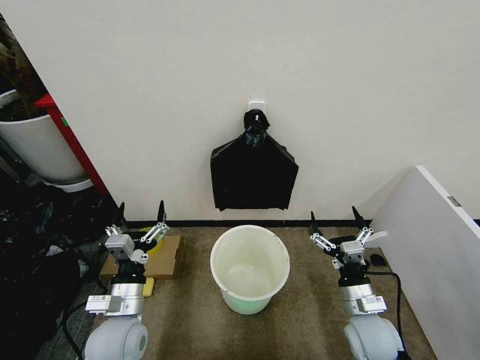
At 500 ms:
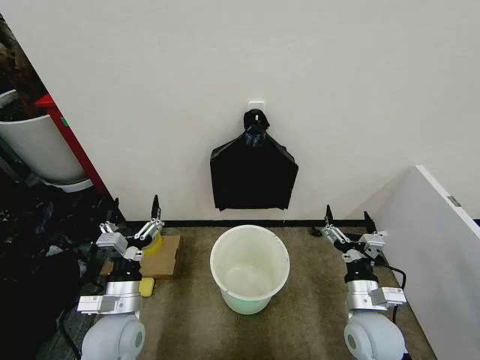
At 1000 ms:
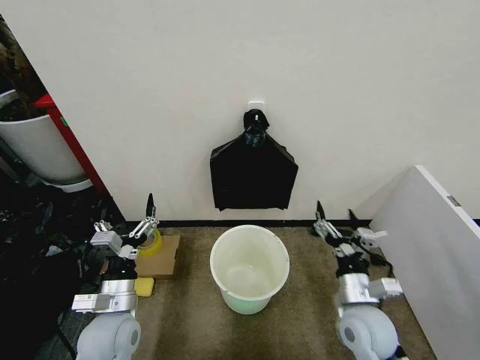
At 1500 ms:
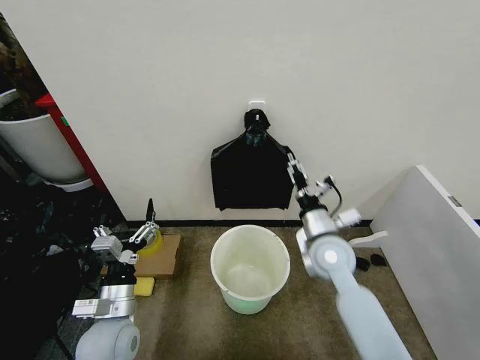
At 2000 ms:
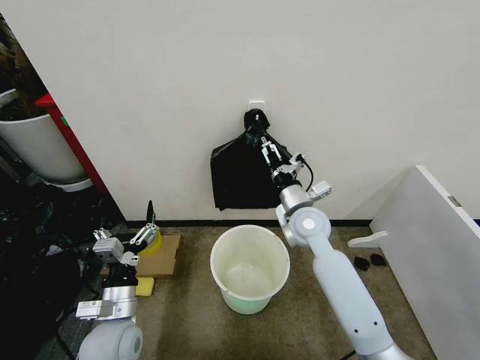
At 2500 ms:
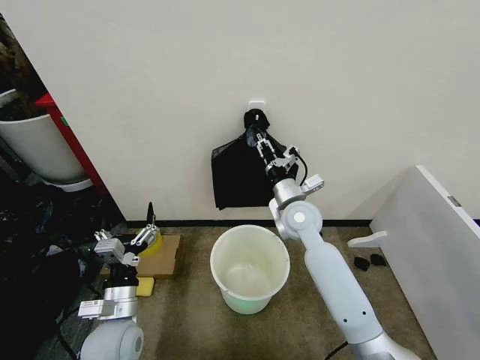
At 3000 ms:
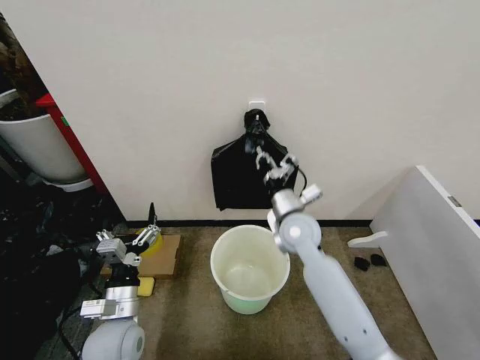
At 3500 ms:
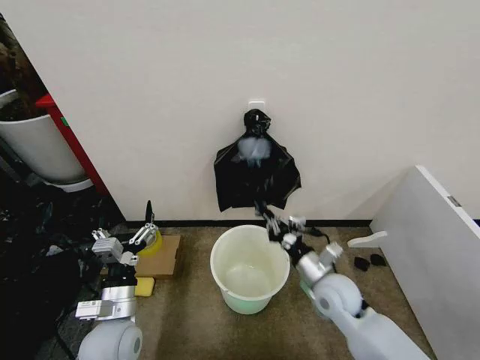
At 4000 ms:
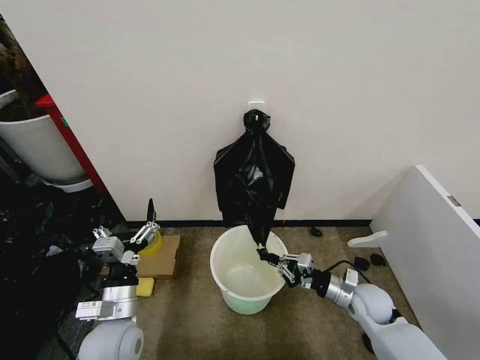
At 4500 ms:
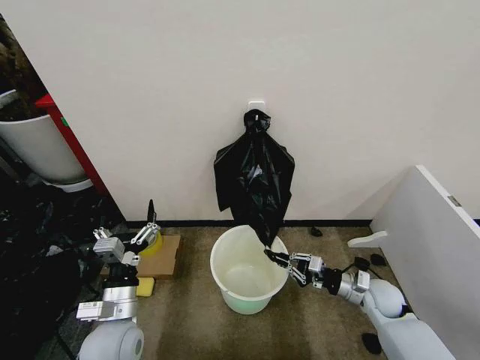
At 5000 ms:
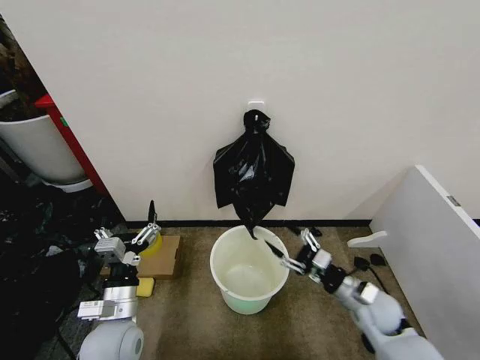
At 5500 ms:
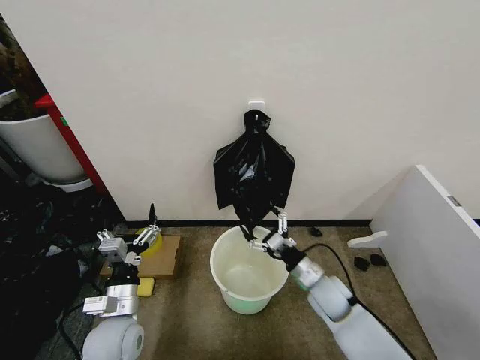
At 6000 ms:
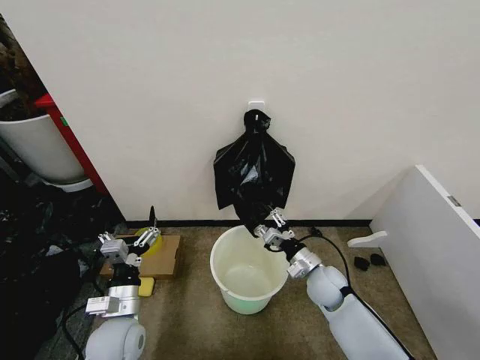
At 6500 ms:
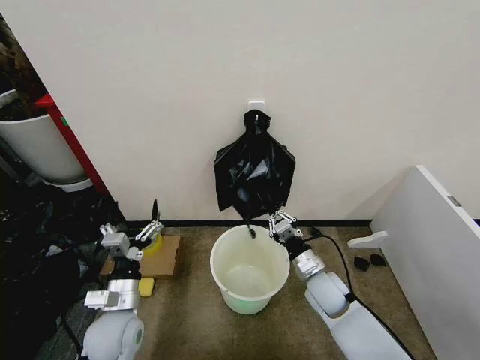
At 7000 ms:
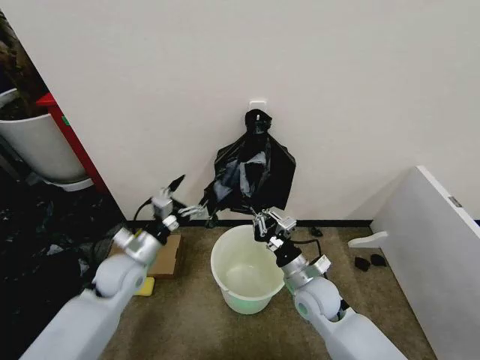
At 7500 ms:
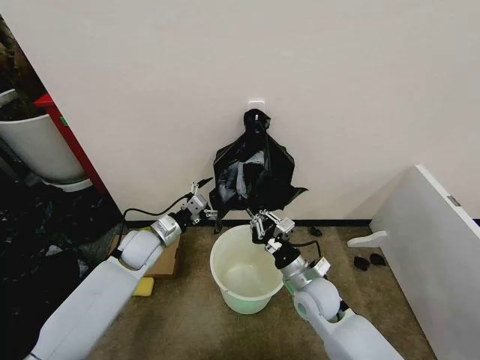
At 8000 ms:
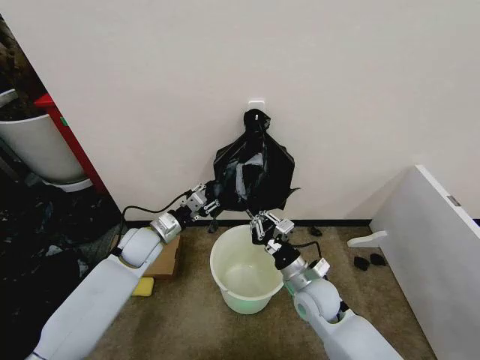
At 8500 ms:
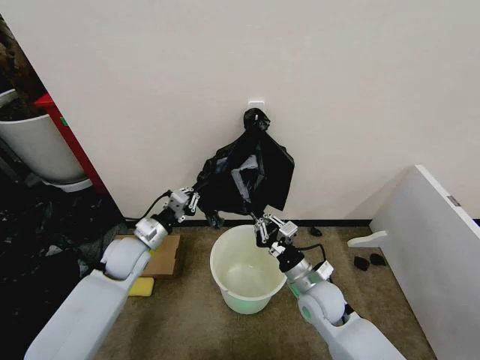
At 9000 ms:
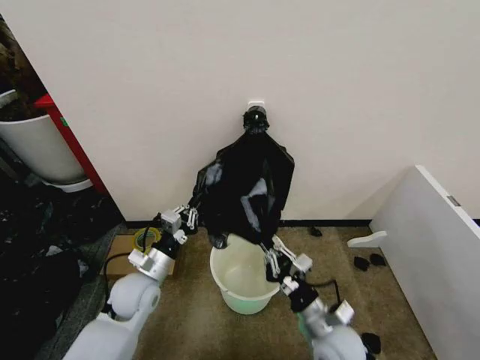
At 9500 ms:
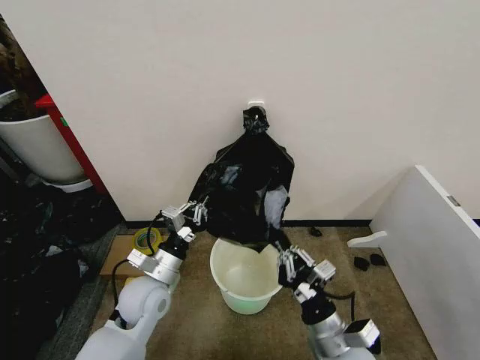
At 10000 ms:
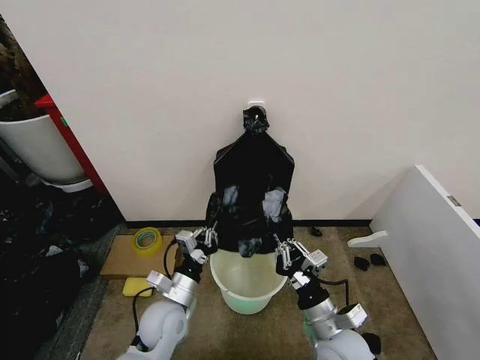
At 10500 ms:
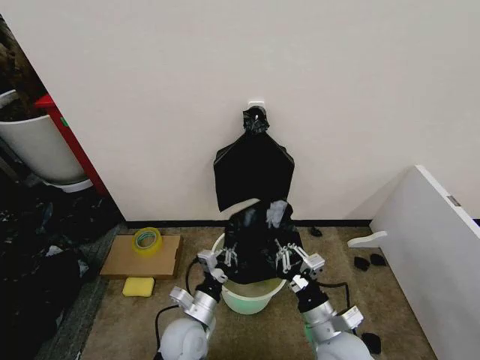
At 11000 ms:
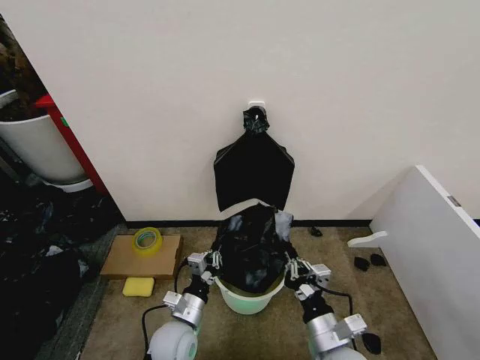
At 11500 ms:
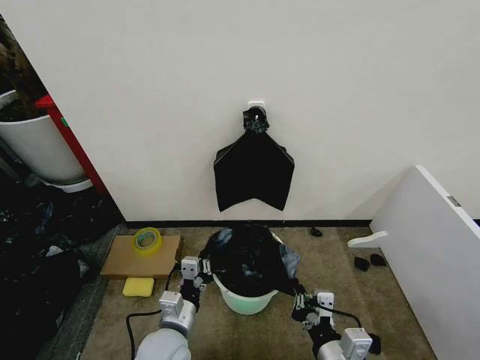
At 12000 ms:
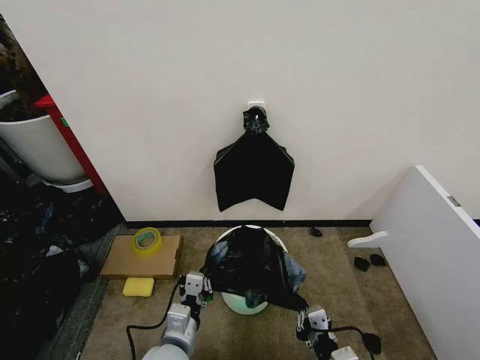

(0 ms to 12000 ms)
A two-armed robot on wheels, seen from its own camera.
Task of the whole recording: Place the garbage bag over the trash bin.
2000 ms - 4000 ms: The right gripper is displaced downward, to the right and backward by some 25 cm, and closes.
4000 ms - 6000 ms: The right gripper heads to the left, covering some 10 cm, and opens.
6000 ms - 8000 ms: The right gripper ends up approximately 10 cm from where it was, and closes its fingers. Meanwhile the left gripper travels forward by about 20 cm, and closes.
8000 ms - 10000 ms: The right gripper travels backward by approximately 10 cm; the left gripper moves backward and to the right, roughly 20 cm, and closes up.
10000 ms - 12000 ms: The two grippers go roughly 10 cm backward.

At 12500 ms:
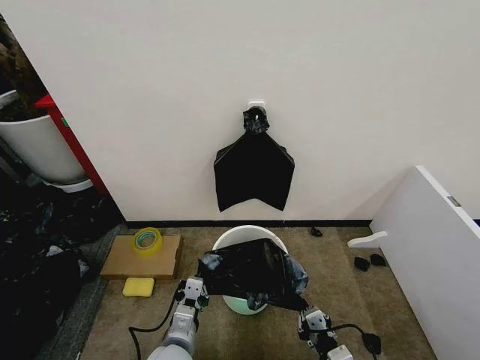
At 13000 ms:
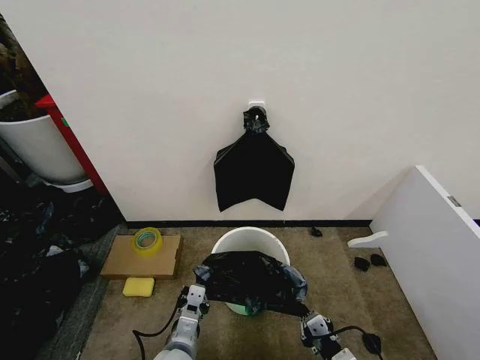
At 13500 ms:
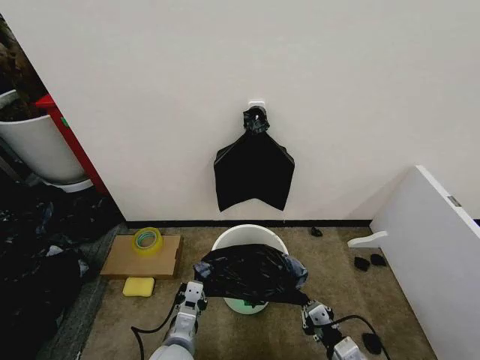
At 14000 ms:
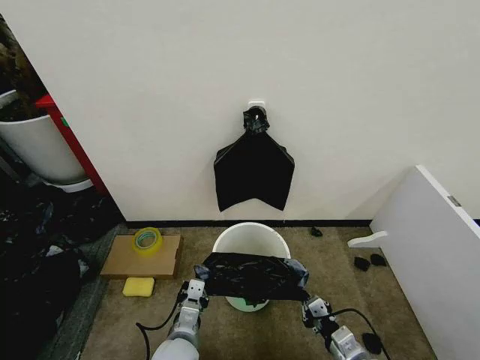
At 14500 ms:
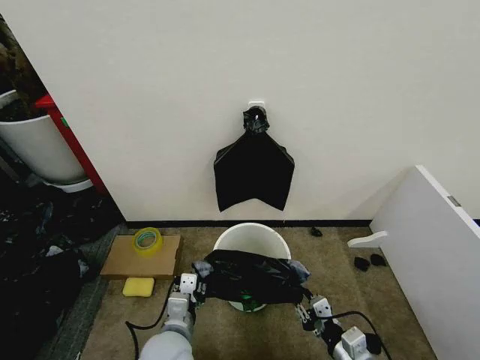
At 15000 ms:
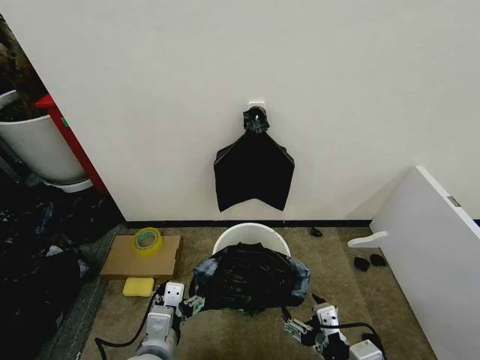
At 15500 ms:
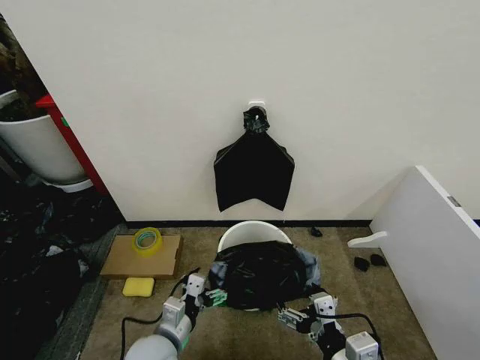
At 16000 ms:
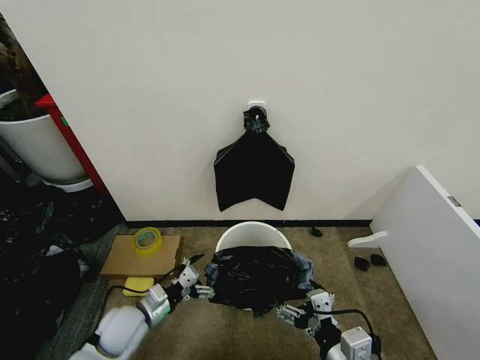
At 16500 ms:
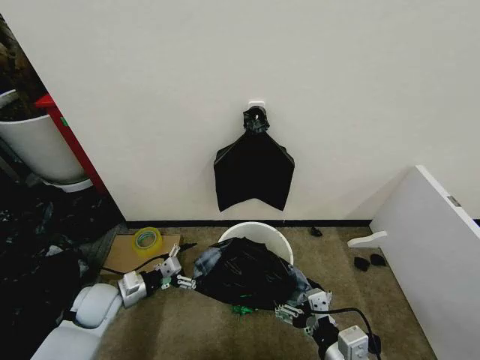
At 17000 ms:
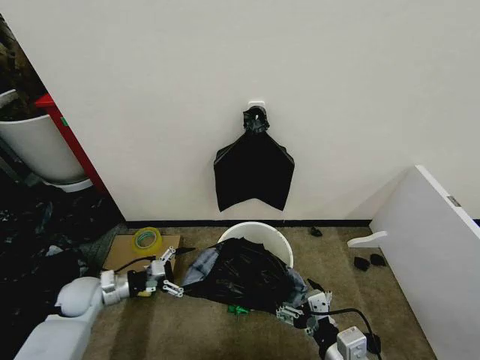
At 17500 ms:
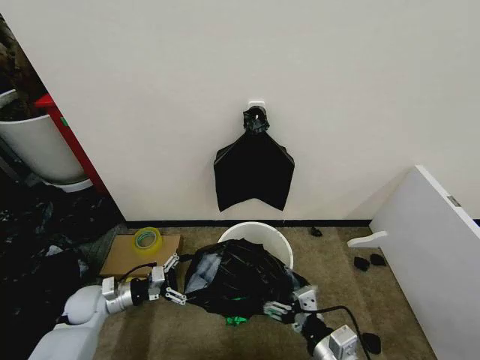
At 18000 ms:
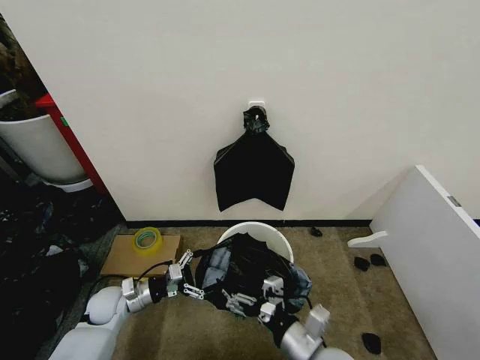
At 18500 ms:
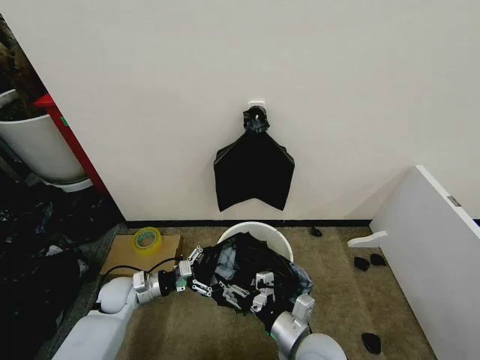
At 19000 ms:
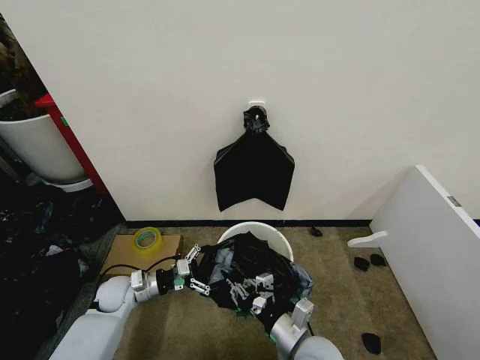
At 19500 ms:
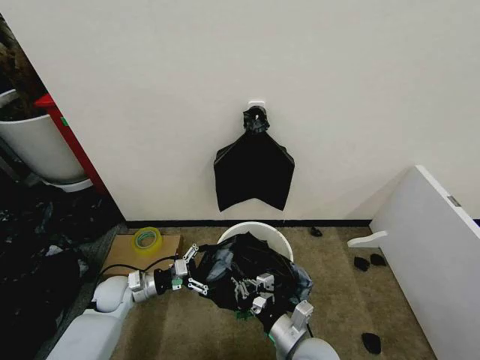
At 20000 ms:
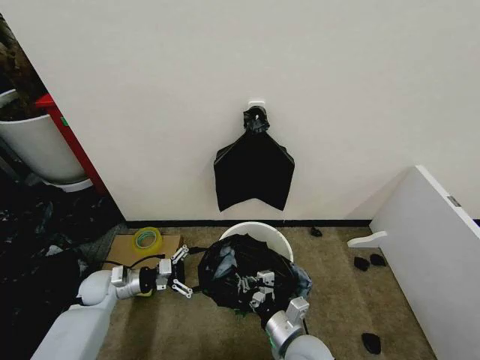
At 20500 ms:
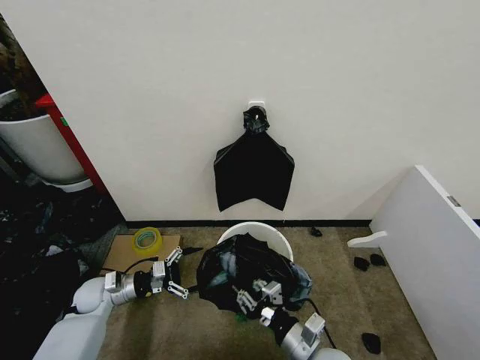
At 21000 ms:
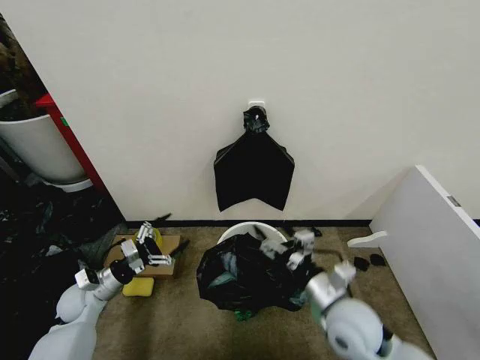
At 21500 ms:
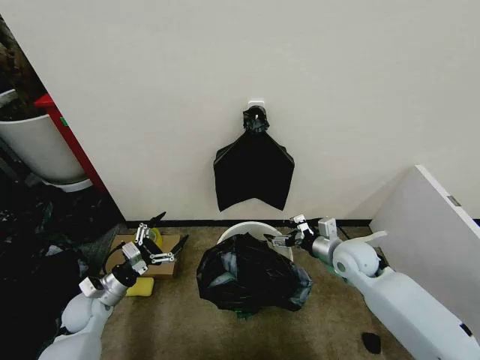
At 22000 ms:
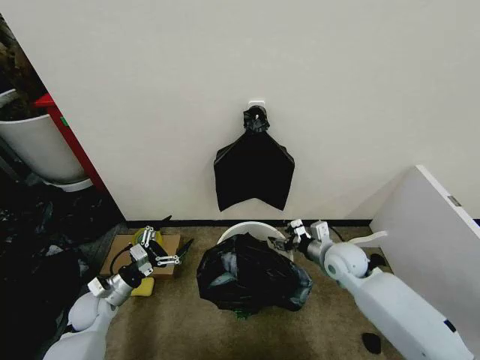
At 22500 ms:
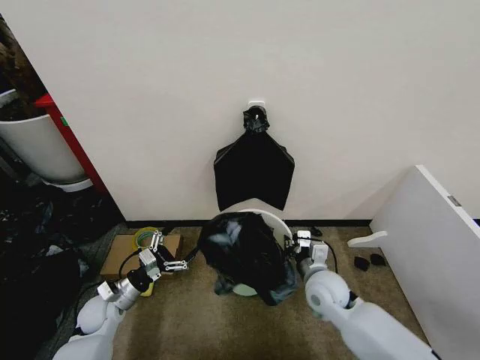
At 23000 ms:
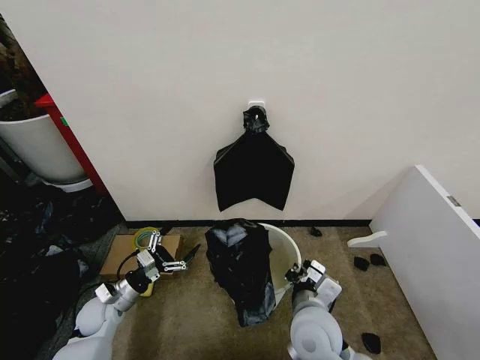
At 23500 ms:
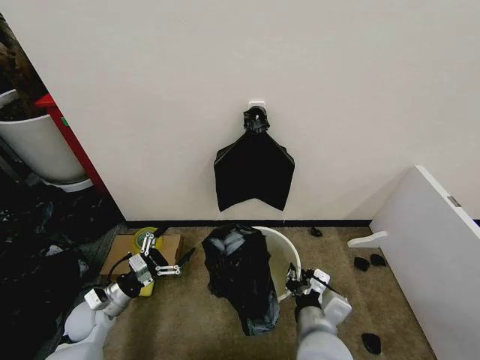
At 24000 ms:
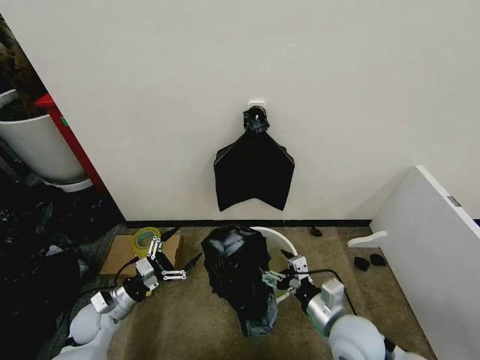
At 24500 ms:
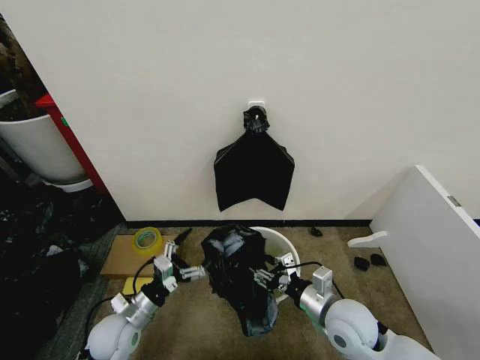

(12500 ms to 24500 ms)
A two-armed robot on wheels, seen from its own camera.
Task of the whole recording: Place the garbage bag over the trash bin.
12500 ms - 14500 ms: The left gripper opens.
14500 ms - 16500 ms: The right gripper heads upward and to the left, covering about 10 cm, and opens, while the left gripper is displaced to the left and forward by roughly 20 cm, and opens its fingers.
16500 ms - 18500 ms: The left gripper moves roughly 5 cm, while the right gripper is displaced forward, to the left and downward by roughly 10 cm.
18500 ms - 20500 ms: The right gripper closes its fingers, while the left gripper moves to the left, some 5 cm.
20500 ms - 22500 ms: The right gripper is displaced forward by some 15 cm, and opens, then closes once more.
22500 ms - 24500 ms: The right gripper travels backward by roughly 10 cm, and opens up. The left gripper moves to the right and backward, roughly 10 cm.

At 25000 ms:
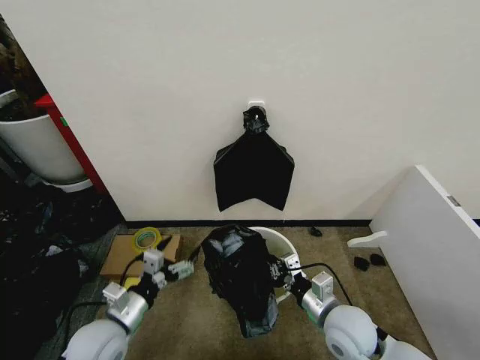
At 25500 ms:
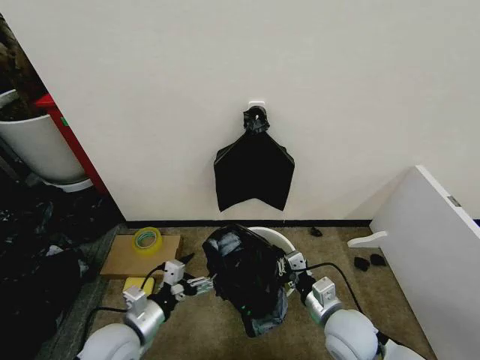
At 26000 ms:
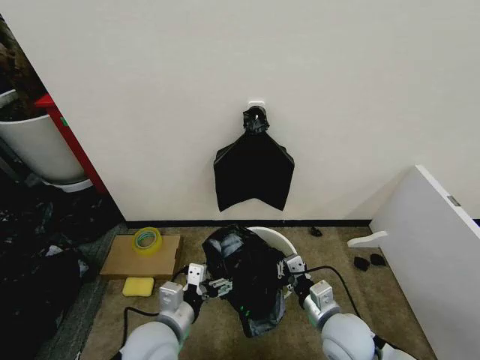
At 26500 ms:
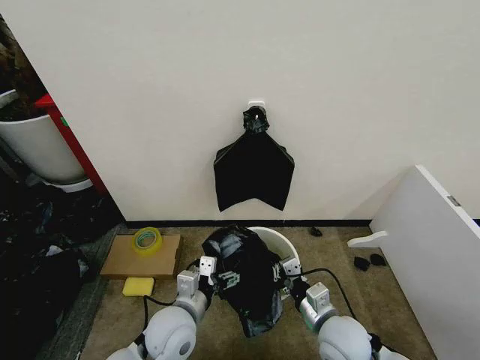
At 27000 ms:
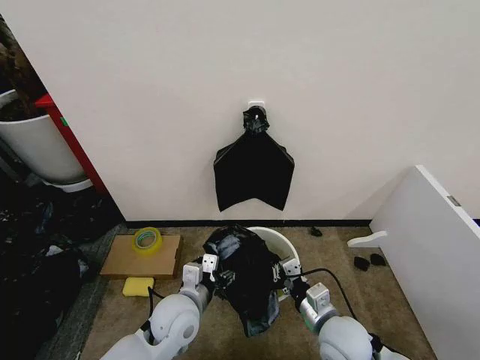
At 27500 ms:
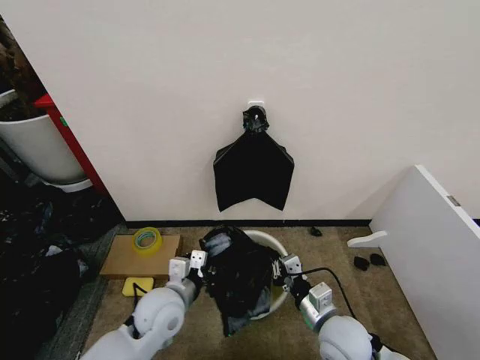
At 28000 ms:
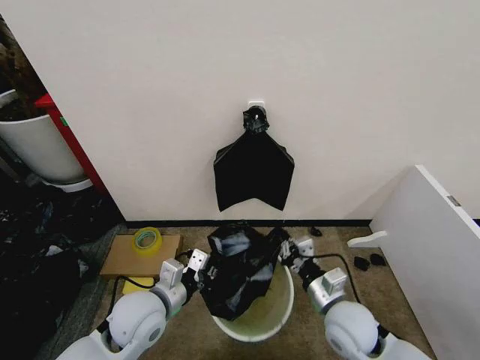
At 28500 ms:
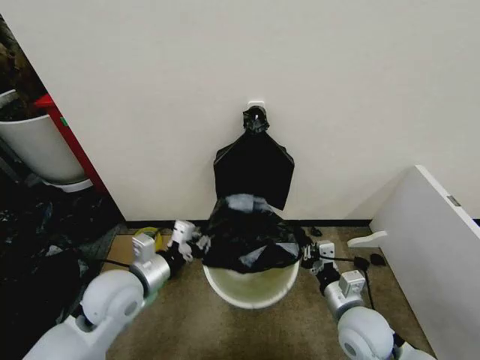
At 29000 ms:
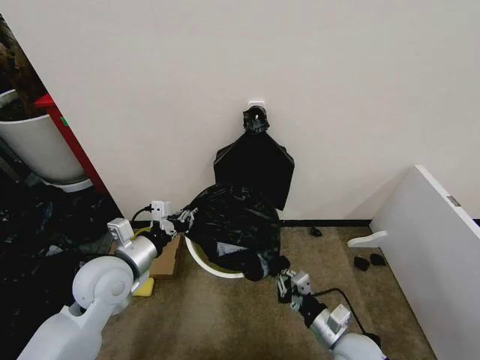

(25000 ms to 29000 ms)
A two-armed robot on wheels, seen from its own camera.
Task of the whole recording: Place the garbage bag over the trash bin.
25000 ms - 27000 ms: The left gripper heads to the right, covering approximately 15 cm.
27000 ms - 29000 ms: The left gripper travels to the left and upward by some 15 cm, and closes. The right gripper shifts by about 5 cm.
